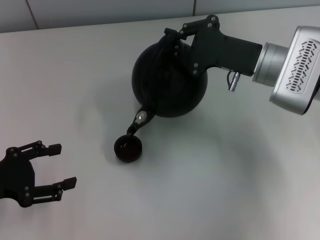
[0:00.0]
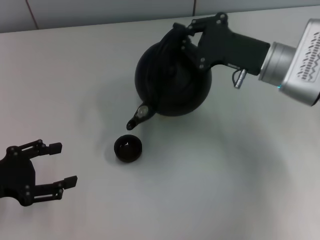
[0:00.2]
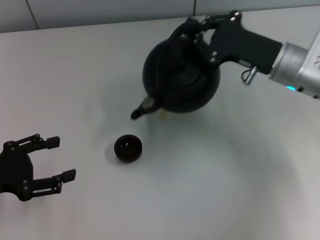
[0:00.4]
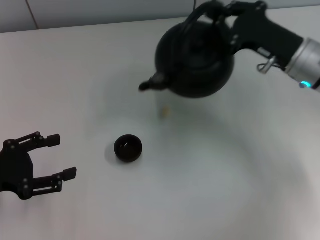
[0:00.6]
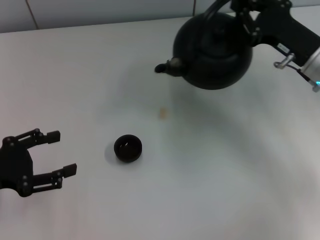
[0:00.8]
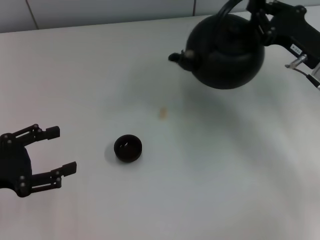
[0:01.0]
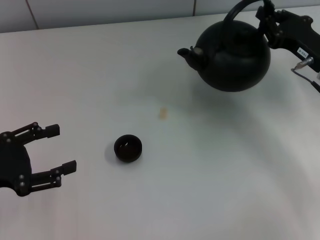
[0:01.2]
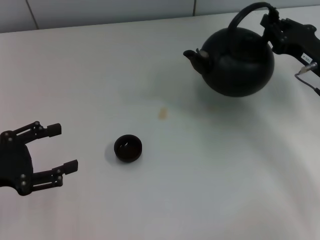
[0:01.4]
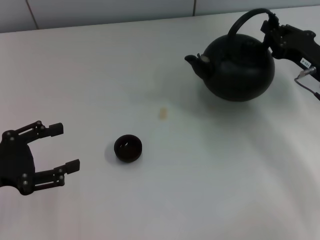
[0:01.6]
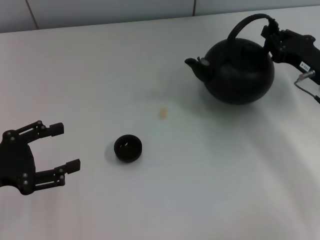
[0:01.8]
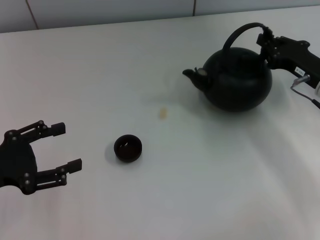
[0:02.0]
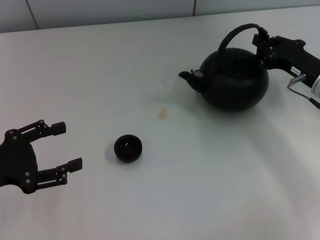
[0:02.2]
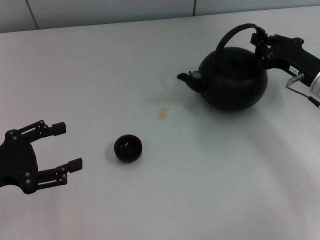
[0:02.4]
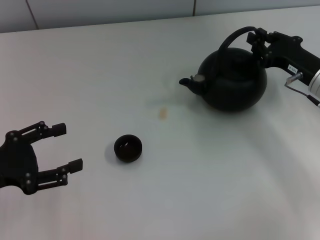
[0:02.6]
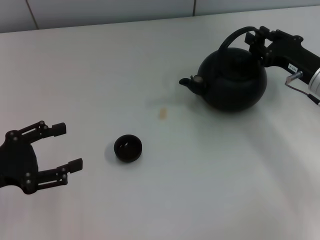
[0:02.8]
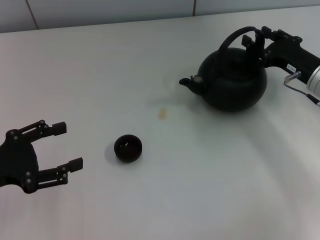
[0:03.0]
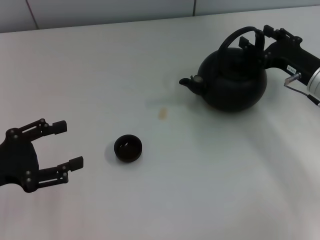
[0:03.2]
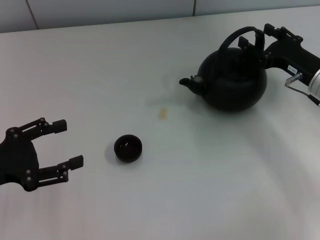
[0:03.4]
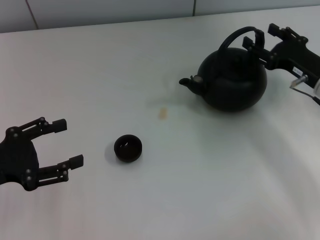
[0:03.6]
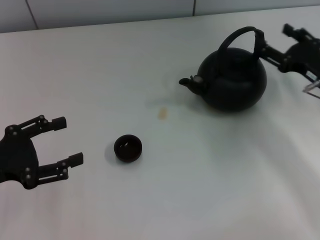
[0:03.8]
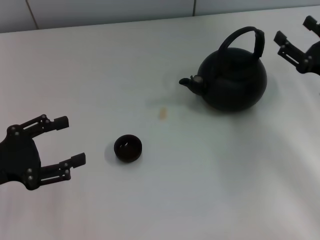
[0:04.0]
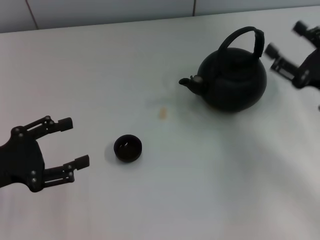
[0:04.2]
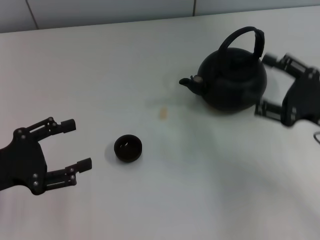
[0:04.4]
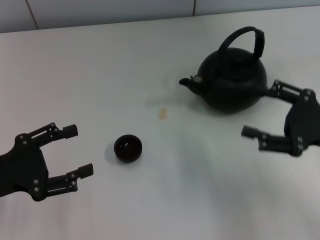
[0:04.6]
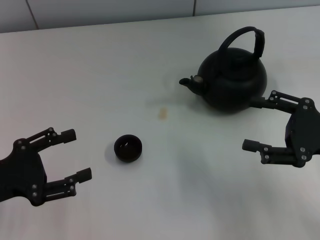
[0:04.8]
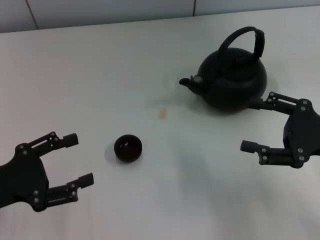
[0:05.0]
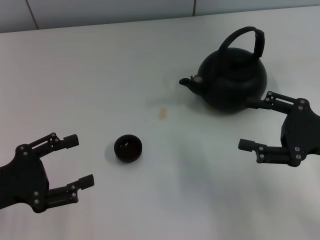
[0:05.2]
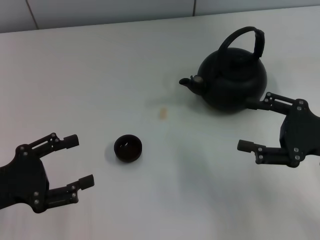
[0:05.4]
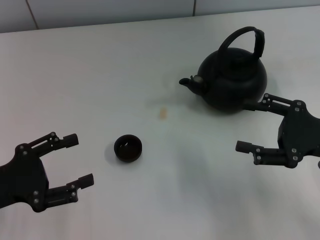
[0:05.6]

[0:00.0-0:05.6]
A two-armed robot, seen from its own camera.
Task of the whole recording: Grasp the handle of the teapot with one hand and pour tea into the teacup.
Step, 0:00.4 to 0:03.6: Put down the teapot with the right gripper.
0:00.0 to 0:01.4: The right gripper moves to the right, roughly 10 cm.
0:01.4 to 0:02.8: The grippers move only a little.
0:02.8 to 0:04.2: The right gripper travels backward by some 10 cm, and opens up.
